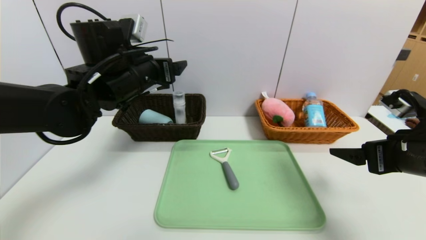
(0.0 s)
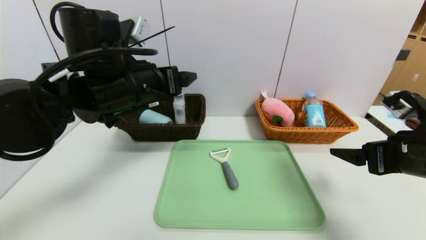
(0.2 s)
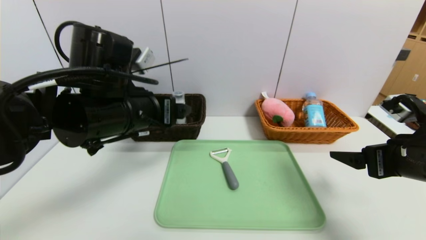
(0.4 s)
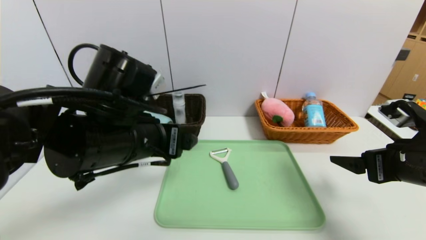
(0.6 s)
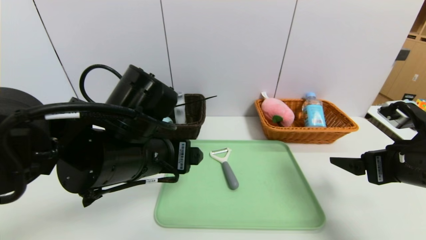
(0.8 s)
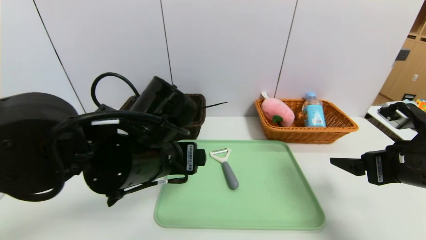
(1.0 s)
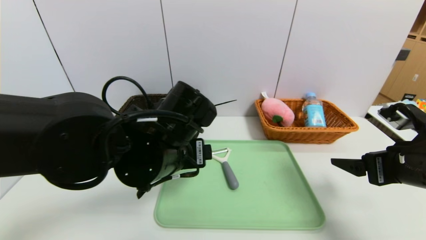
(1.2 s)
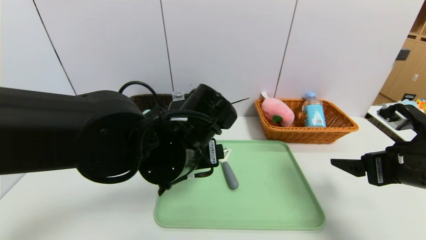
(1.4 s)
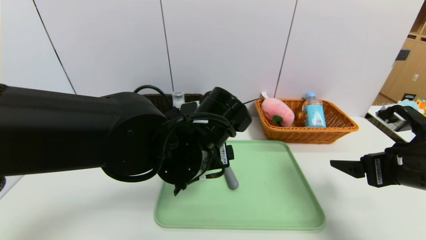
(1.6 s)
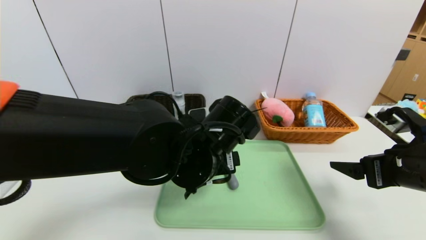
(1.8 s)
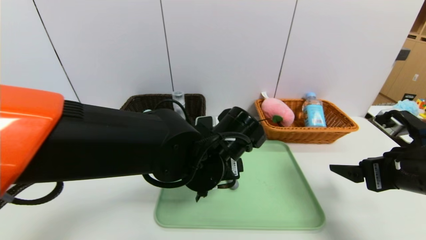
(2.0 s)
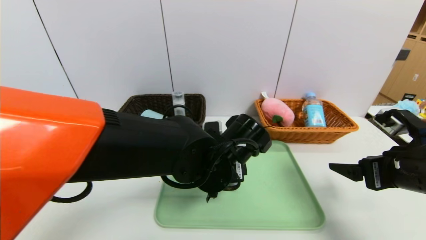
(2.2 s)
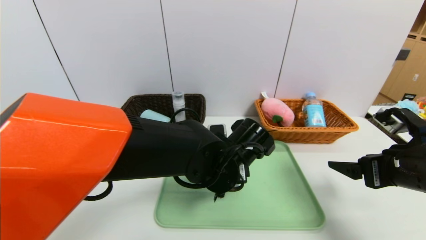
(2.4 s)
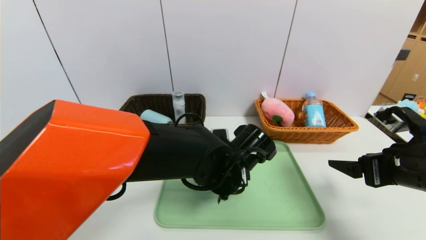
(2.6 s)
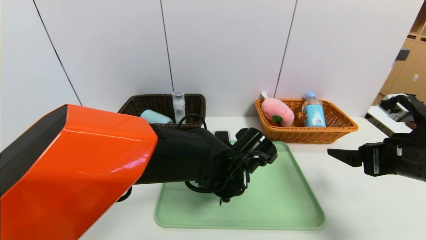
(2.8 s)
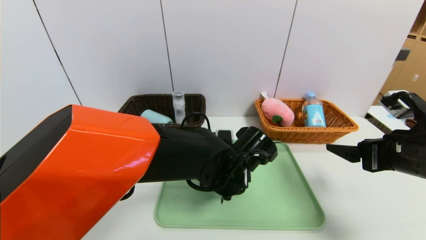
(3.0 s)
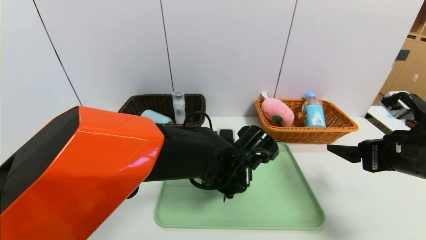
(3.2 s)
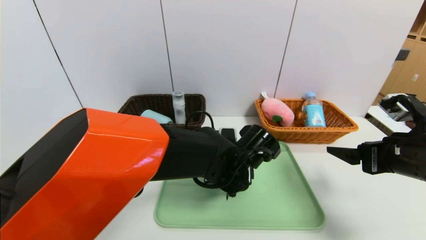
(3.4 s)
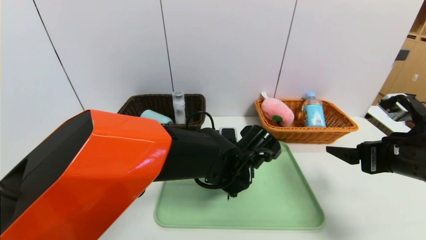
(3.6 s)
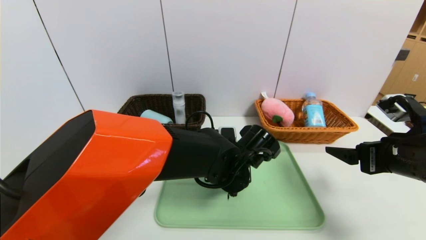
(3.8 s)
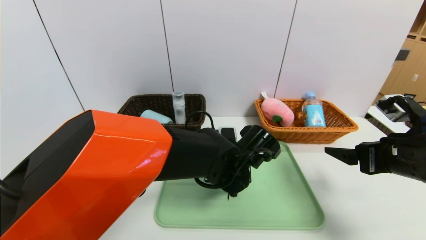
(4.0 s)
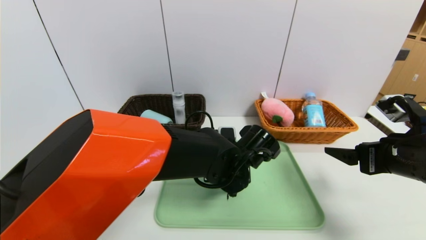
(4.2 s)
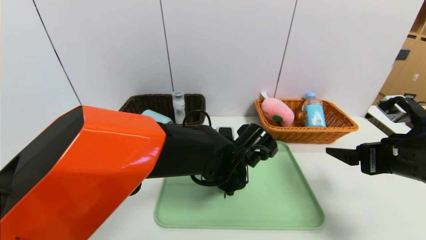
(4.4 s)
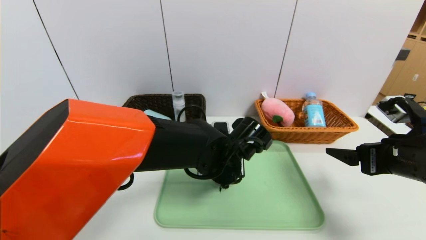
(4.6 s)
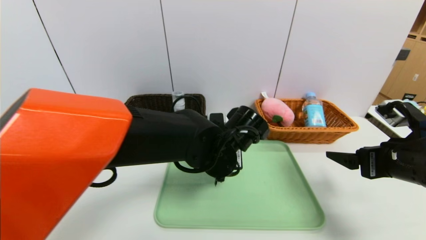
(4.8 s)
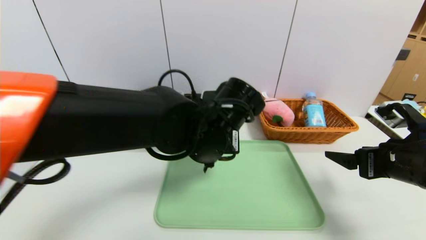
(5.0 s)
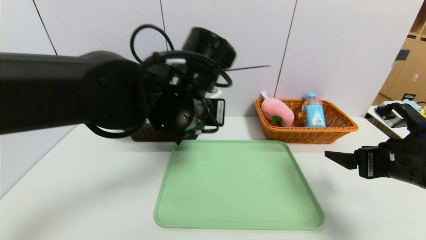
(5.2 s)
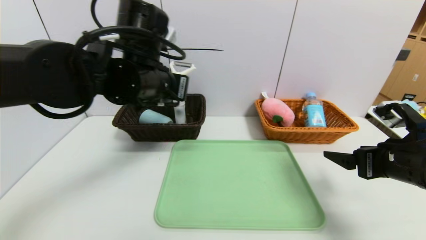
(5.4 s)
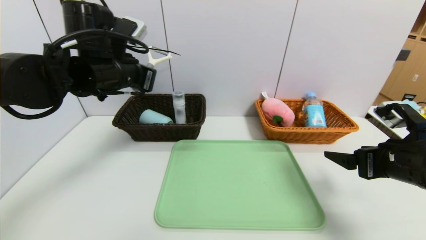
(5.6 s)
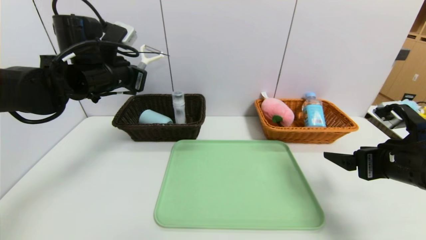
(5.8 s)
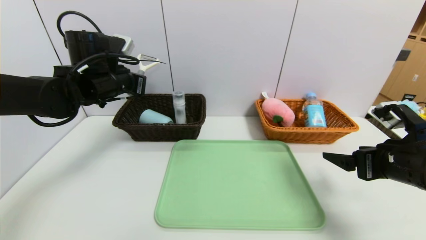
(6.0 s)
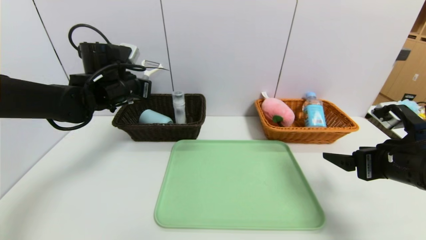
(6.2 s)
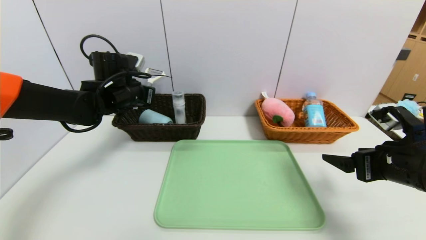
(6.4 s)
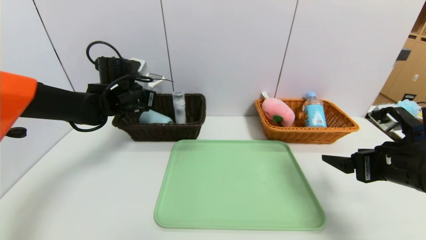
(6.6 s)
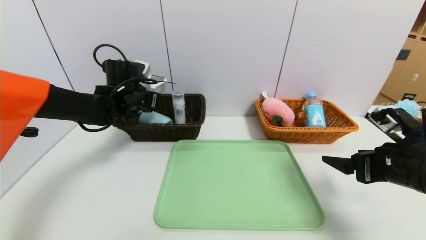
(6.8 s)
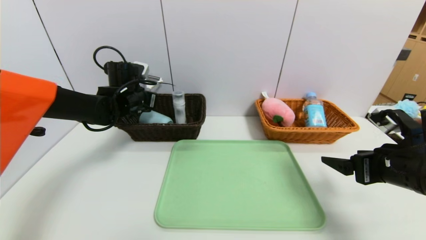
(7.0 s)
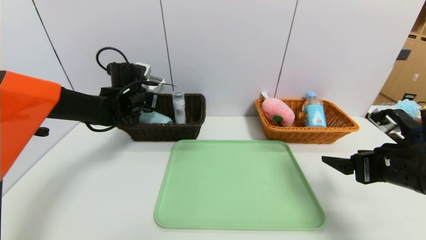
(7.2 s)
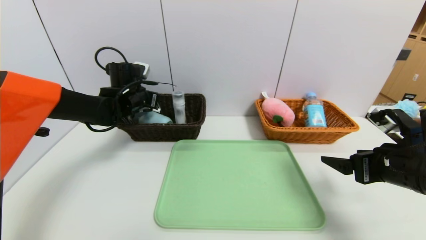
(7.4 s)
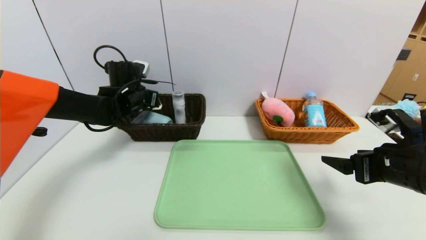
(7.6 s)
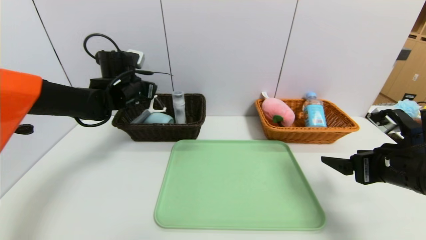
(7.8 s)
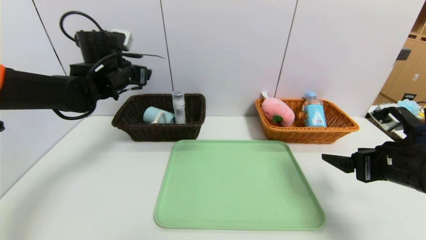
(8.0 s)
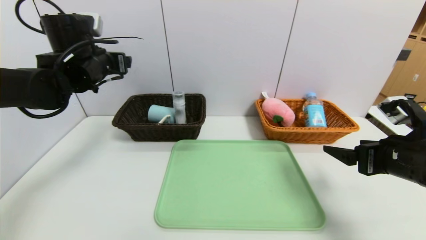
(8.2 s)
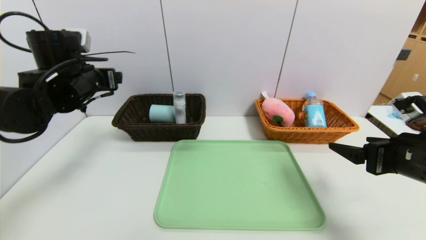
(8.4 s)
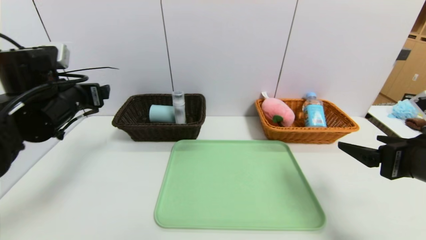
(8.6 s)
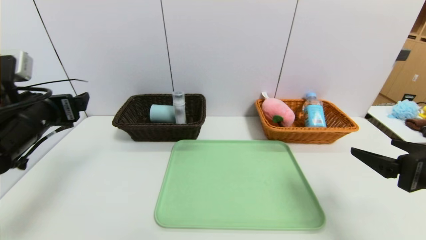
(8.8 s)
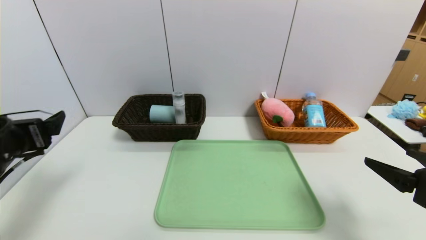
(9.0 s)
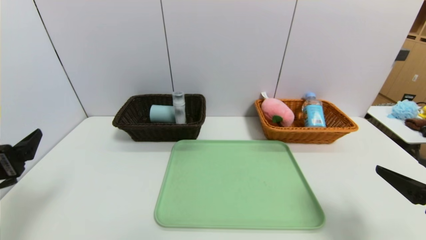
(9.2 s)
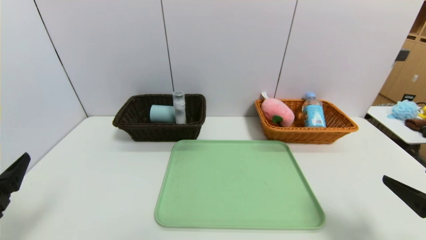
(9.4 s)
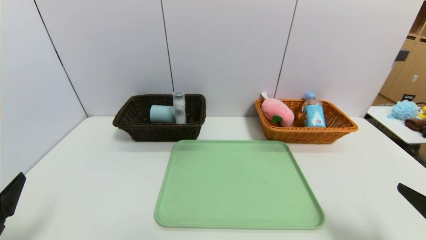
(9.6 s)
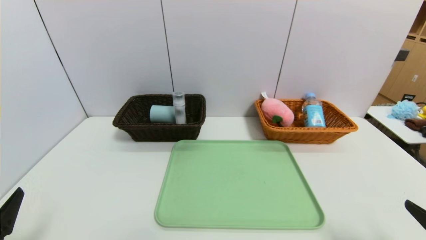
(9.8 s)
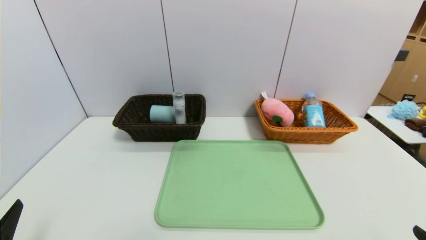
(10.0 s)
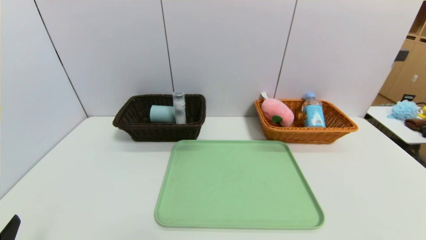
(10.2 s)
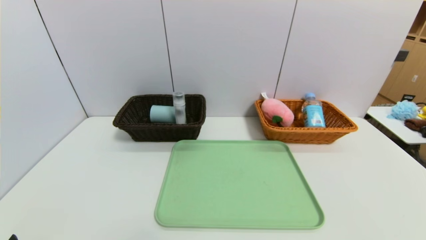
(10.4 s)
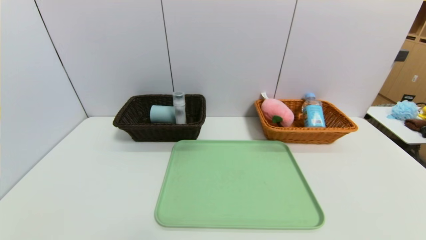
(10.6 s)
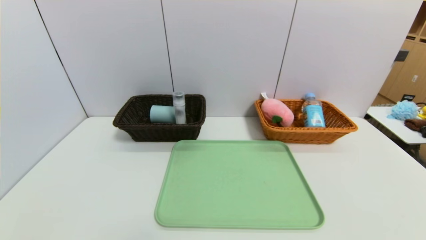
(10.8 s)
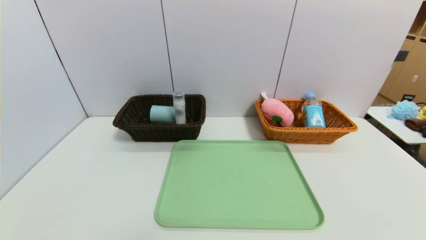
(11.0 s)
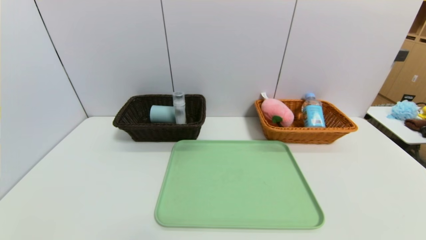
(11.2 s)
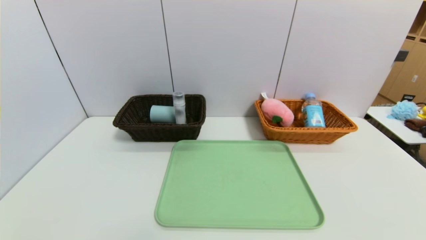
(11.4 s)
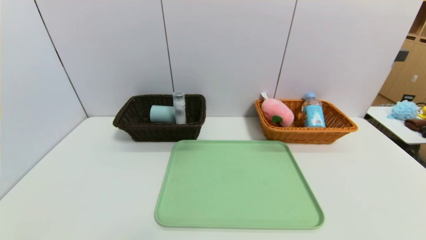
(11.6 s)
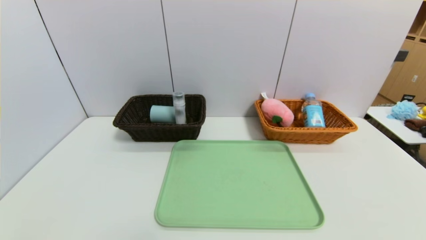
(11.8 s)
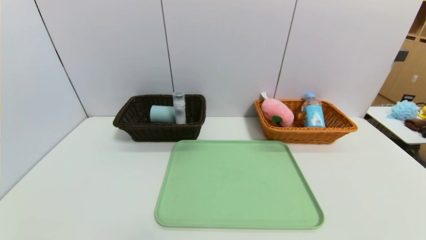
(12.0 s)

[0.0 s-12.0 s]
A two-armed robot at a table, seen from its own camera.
Task of the whole recording: place the food in the right basket with the right gripper, and place the non food items in the left basket with the left gripper.
Step, 0.0 to 8.0 s: Grasp the peeler and put it in the left basket.
0.0 to 1.6 s: The left gripper moves to the right, backward and downward, approximately 15 cm.
1.6 to 3.0 s: The left gripper heads downward and to the right, covering approximately 10 cm.
3.0 to 4.4 s: The left gripper closes its fingers.
4.4 to 6.0 s: The left gripper moves to the left, upward and forward, roughly 30 cm.
6.0 to 7.6 s: The left gripper heads forward and downward, covering about 10 cm, and opens up.
7.6 to 9.0 s: The right gripper heads backward, covering approximately 10 cm. Meanwhile the left gripper moves backward, about 30 cm, and opens its fingers.
9.0 to 10.4 s: The grippers both shift backward and downward by approximately 20 cm.

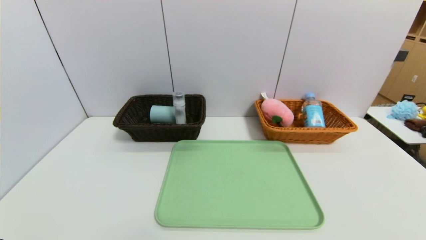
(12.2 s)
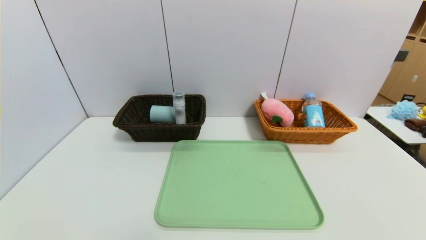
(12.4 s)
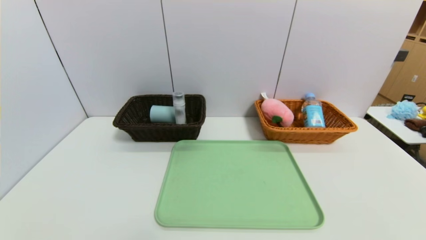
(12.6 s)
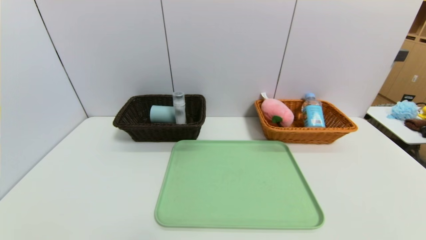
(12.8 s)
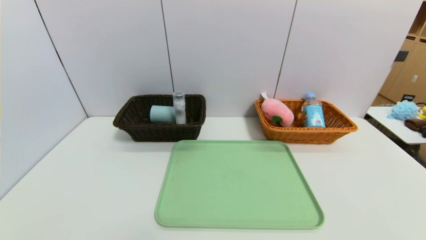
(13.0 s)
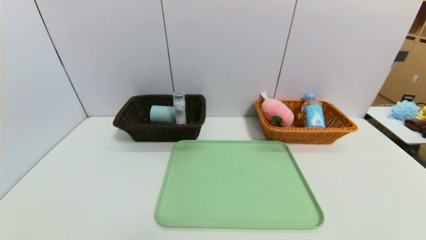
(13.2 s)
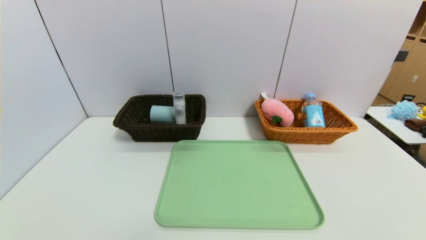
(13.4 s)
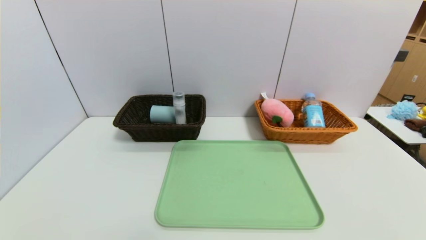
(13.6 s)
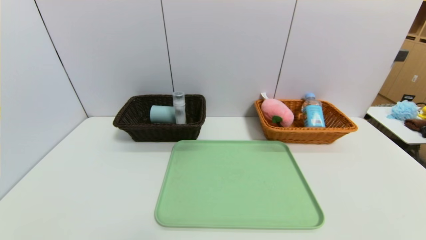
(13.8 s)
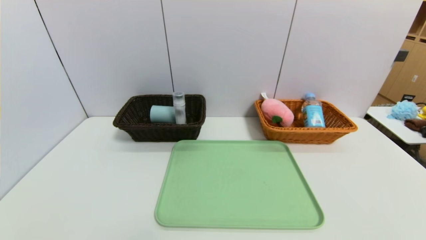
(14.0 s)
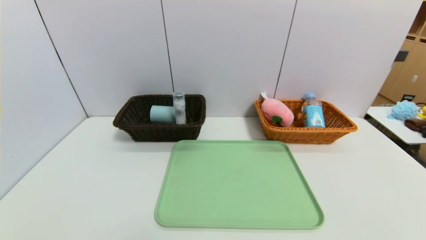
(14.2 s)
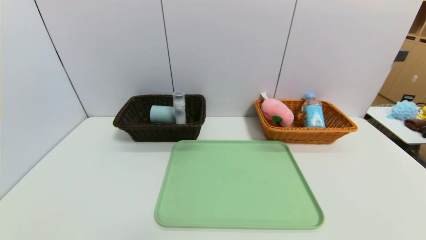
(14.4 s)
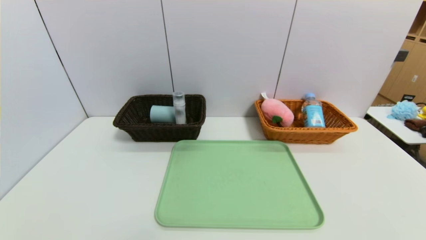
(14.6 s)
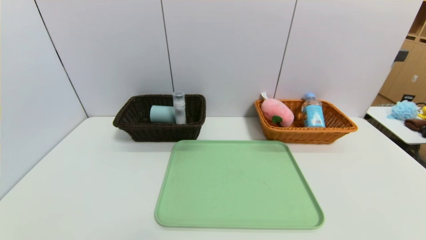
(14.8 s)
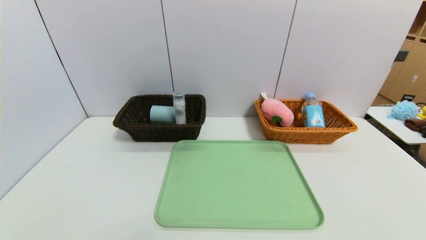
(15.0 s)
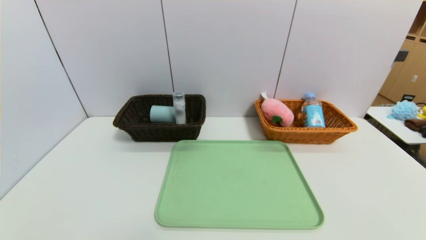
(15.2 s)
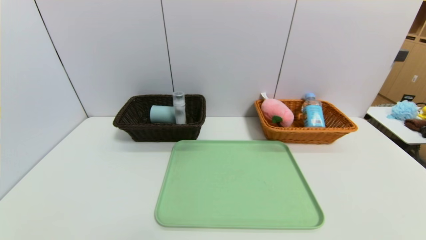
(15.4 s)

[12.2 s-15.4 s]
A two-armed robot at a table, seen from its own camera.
Task of the whole recording: place the food in the right basket with the right gripper, and place the non food items in the left basket with the left gripper.
13.8 to 15.4 s: Neither gripper changes place.
